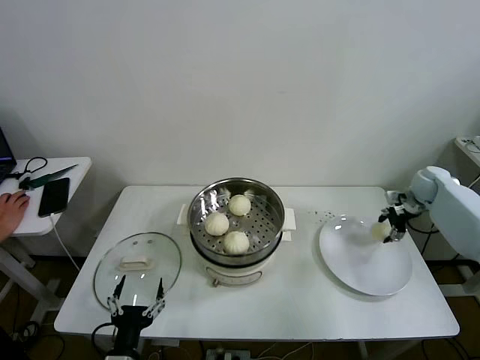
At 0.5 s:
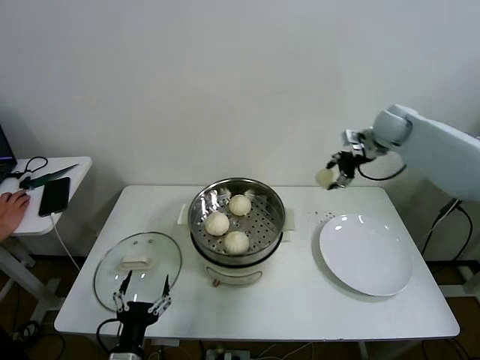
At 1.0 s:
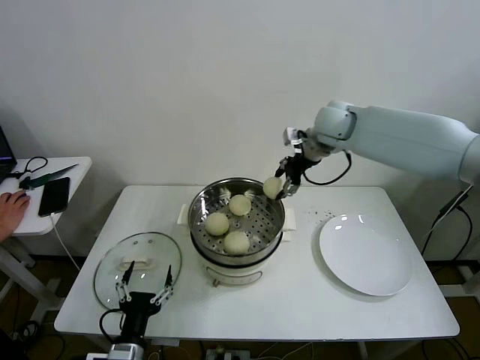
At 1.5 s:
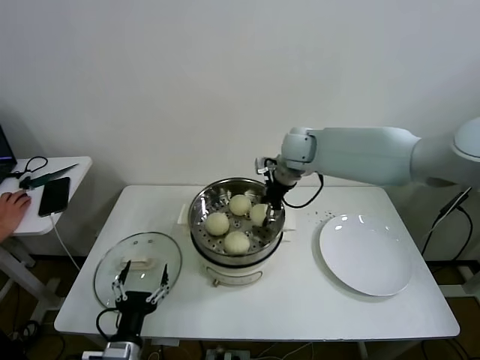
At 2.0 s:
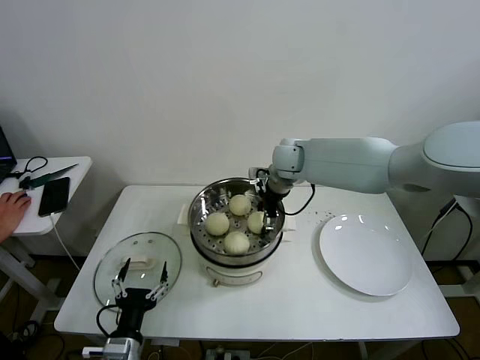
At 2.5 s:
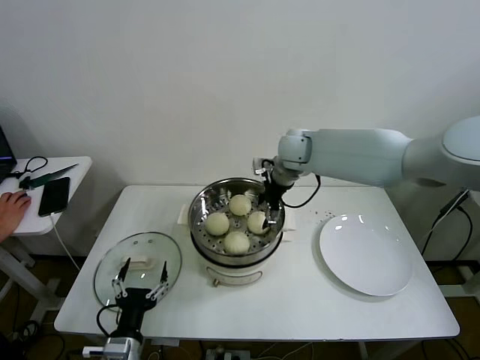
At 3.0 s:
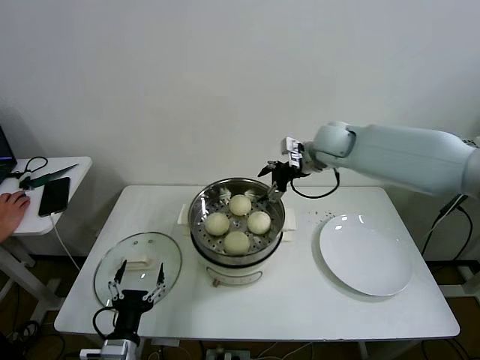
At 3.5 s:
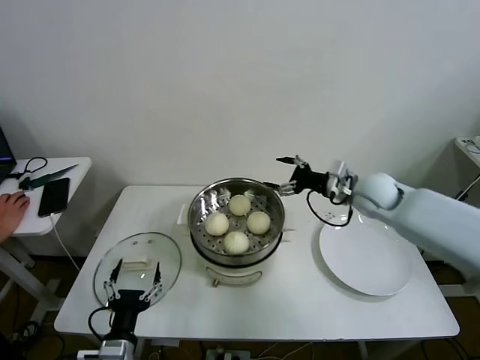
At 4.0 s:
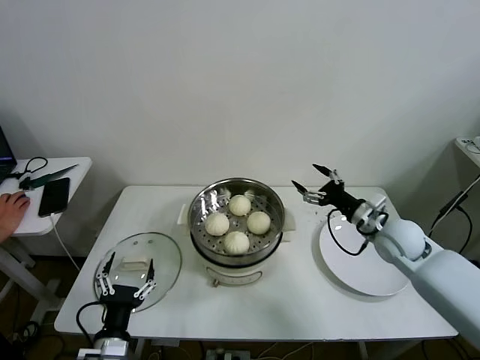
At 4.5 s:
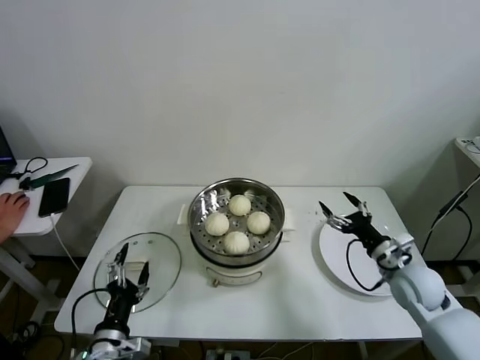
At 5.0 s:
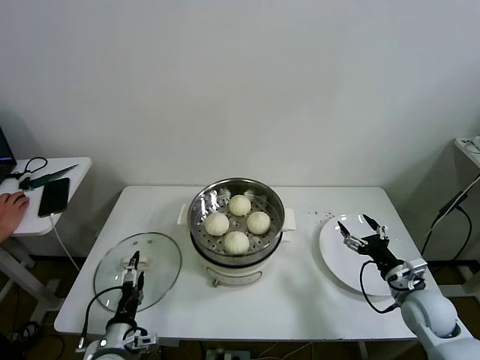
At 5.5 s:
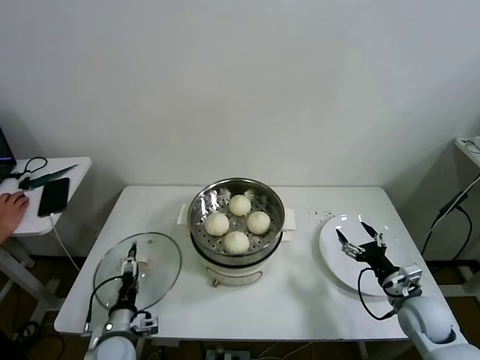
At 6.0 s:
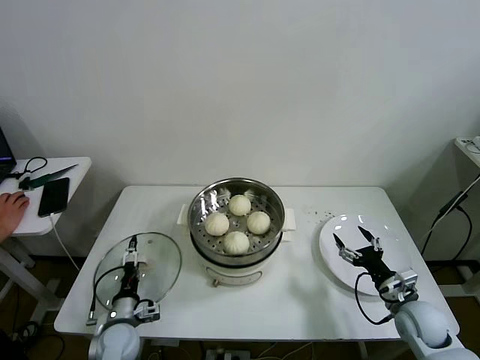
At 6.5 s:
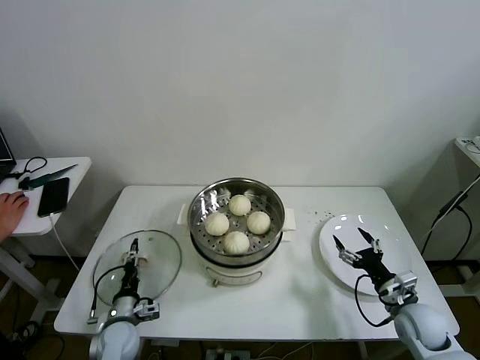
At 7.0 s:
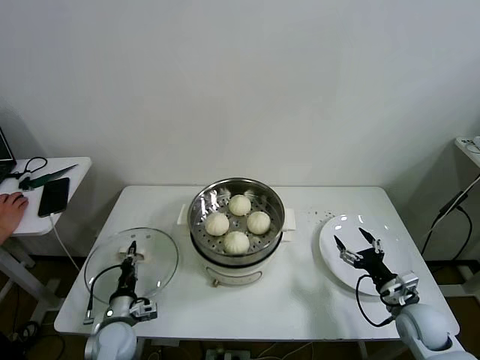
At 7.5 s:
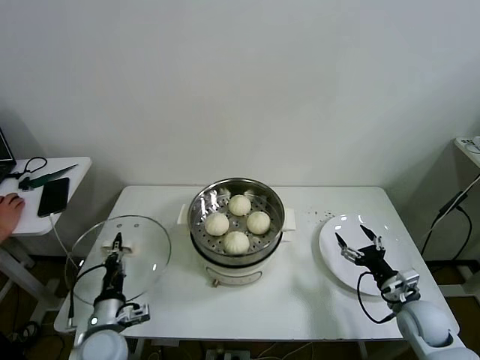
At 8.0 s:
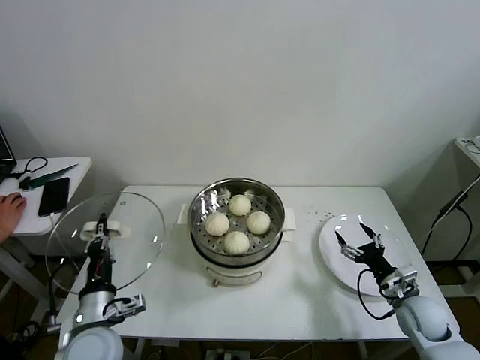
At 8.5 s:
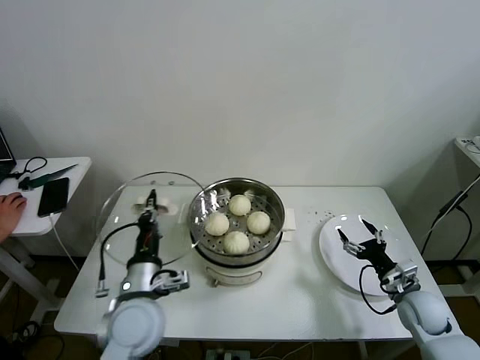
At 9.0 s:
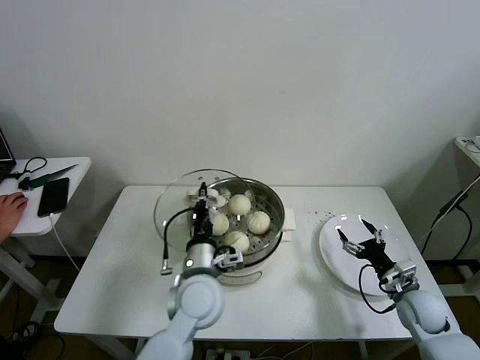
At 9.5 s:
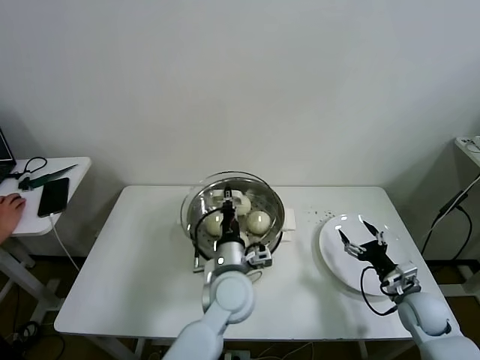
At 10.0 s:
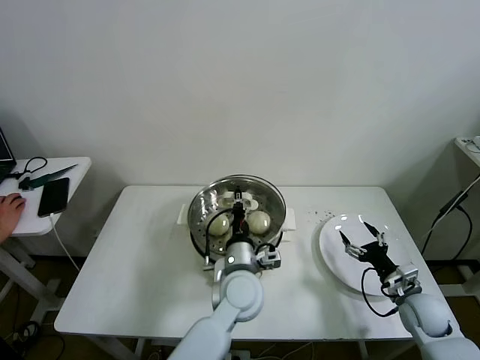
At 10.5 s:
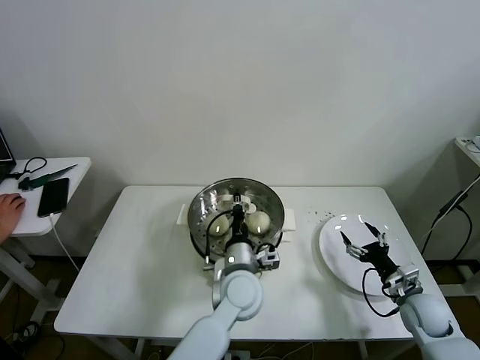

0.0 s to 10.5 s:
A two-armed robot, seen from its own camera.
Task of the whole recording: take steamed baozi put them in steamer then cover it.
Step, 0.0 to 2.0 s: Place the baozi on the steamer with right gripper.
Step, 2.5 to 6.5 s: Grasp the pot lid with left gripper.
0.0 to 2.0 s: The right gripper is displaced to the left by roughly 40 cm, and opens its fingers.
2.0 to 4.0 s: The right gripper heads to the right, backward and downward, covering some 30 cm, and opens its fingers.
4.0 to 6.5 s: The right gripper travels downward and backward by about 20 cm; the left gripper travels forward and downward by some 15 cm, and closes up.
6.5 to 8.5 s: The left gripper heads upward and to the right, covering about 25 cm, and closes.
8.5 to 10.5 s: The left gripper travels to the right by roughly 20 cm.

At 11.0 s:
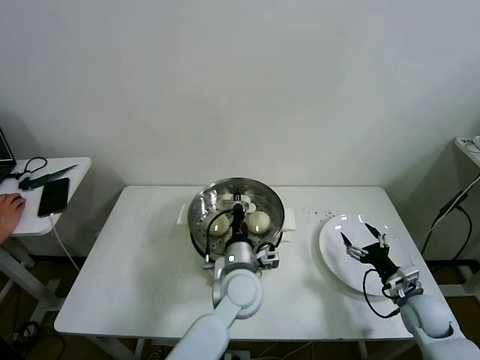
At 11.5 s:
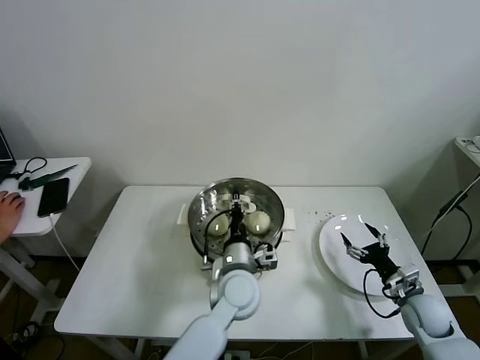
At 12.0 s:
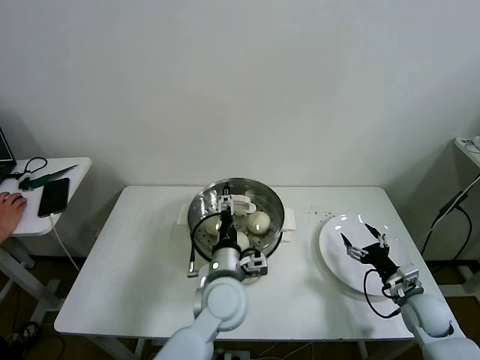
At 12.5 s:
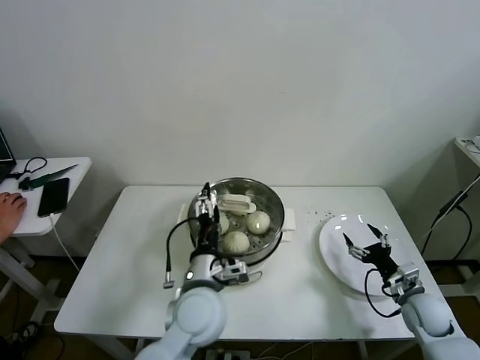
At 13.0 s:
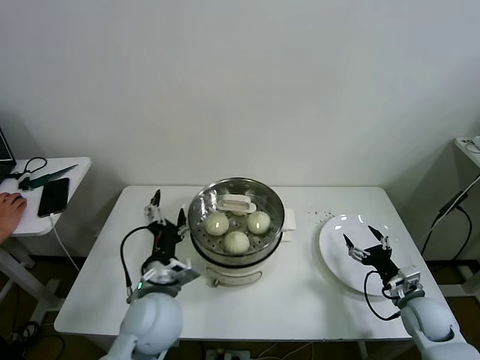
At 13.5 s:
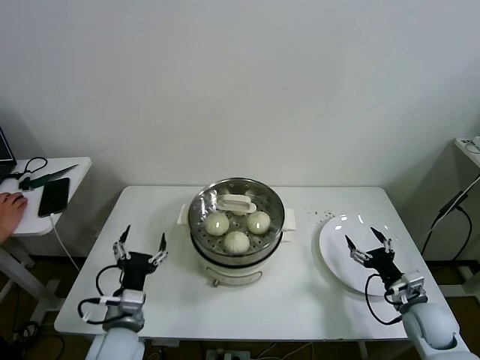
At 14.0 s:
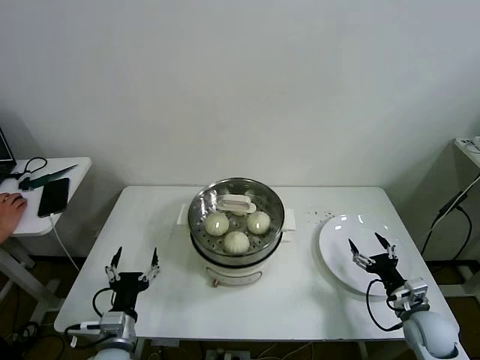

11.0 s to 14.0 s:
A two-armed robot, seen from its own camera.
Task of the whole recording: take steamed baozi put them in steamer then cover it.
11.0 to 12.5 s: The left gripper goes roughly 10 cm to the left and backward, and opens.
12.5 to 14.0 s: The left gripper is displaced to the left, downward and backward by about 25 cm.
